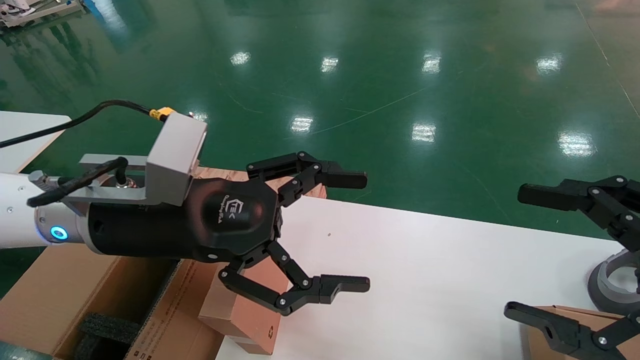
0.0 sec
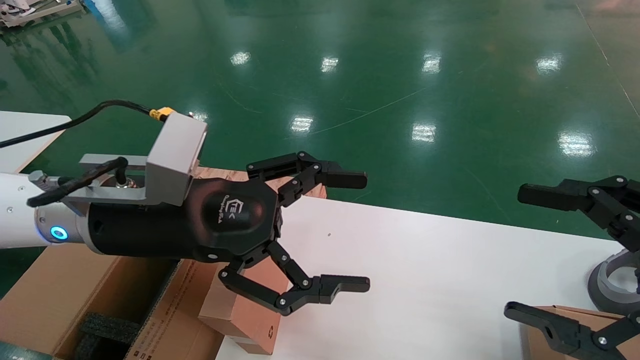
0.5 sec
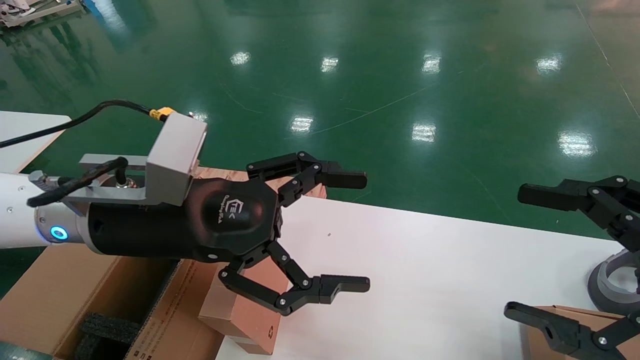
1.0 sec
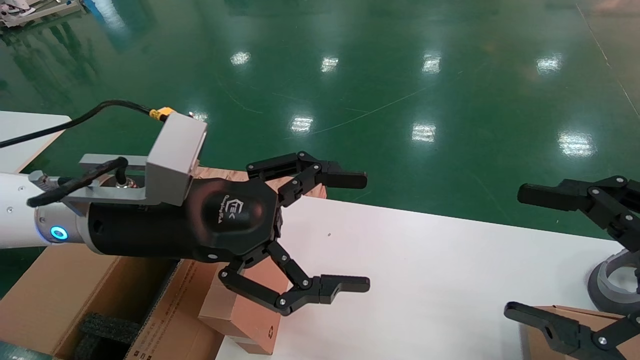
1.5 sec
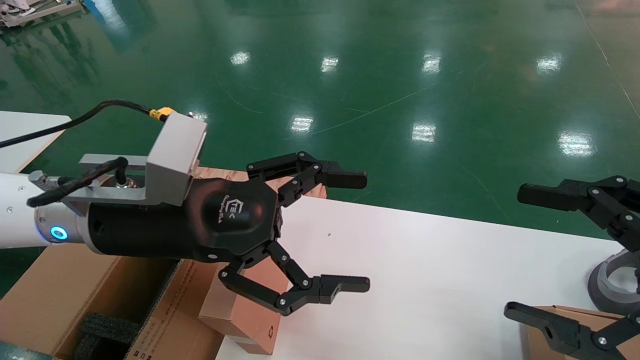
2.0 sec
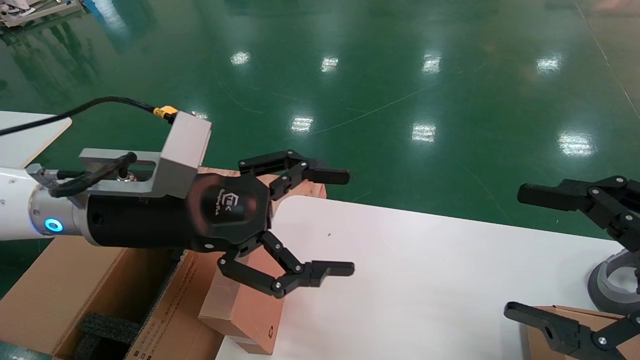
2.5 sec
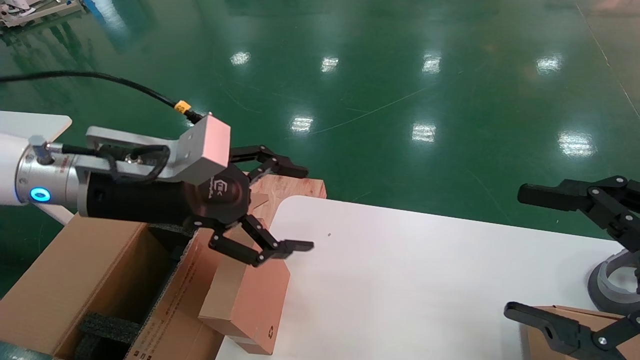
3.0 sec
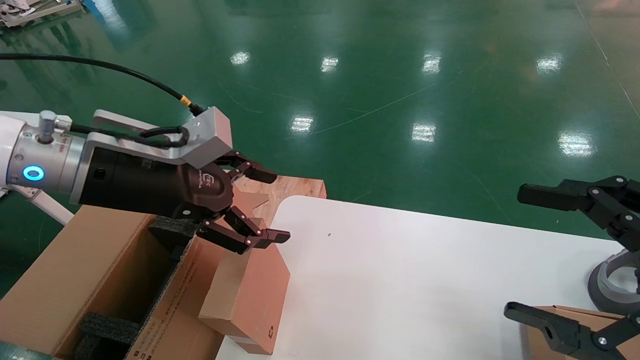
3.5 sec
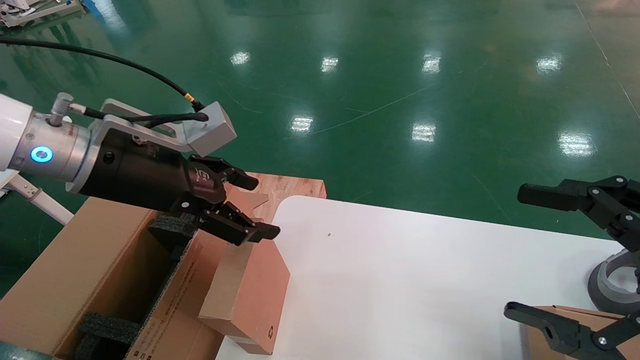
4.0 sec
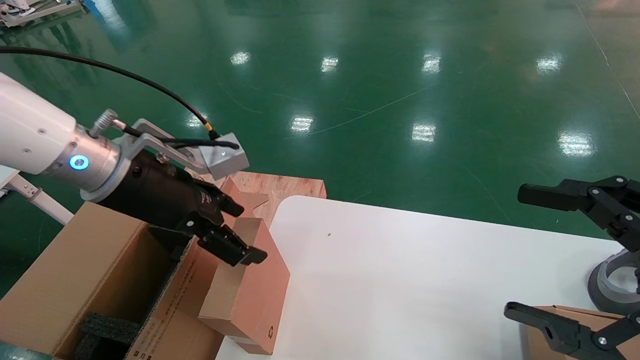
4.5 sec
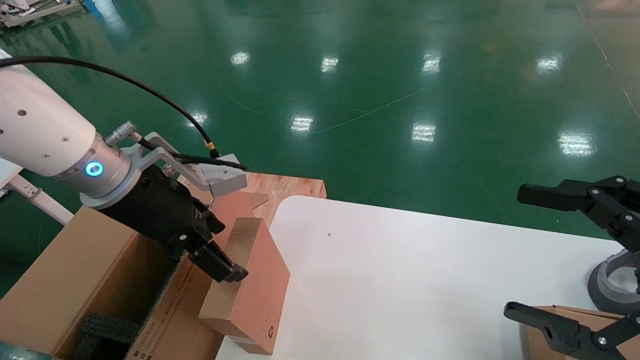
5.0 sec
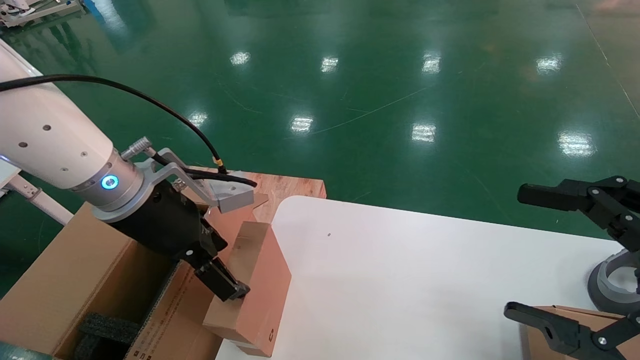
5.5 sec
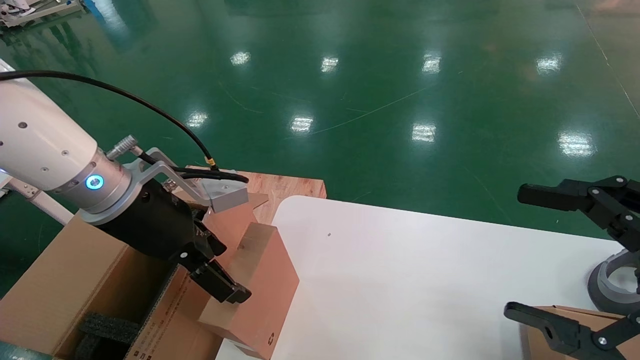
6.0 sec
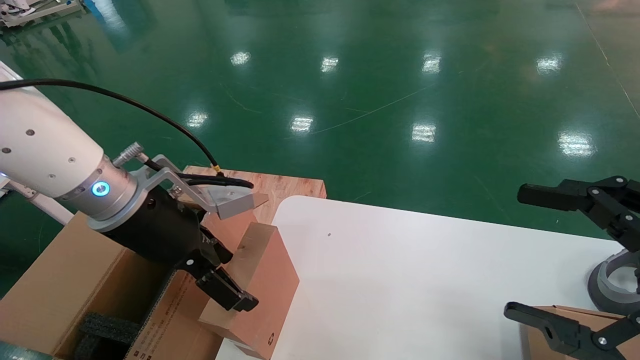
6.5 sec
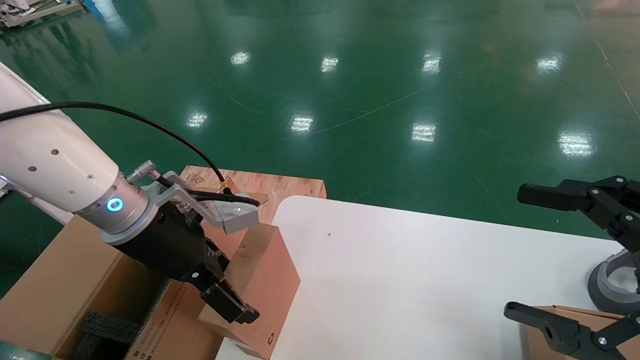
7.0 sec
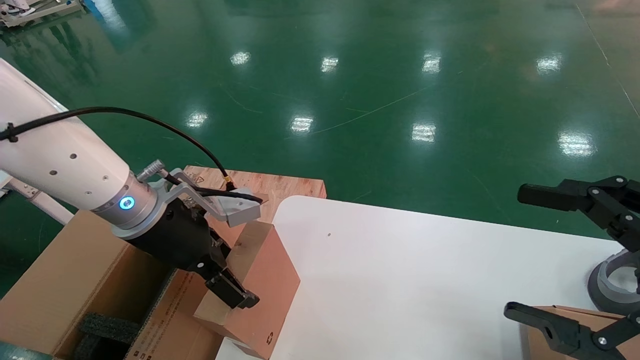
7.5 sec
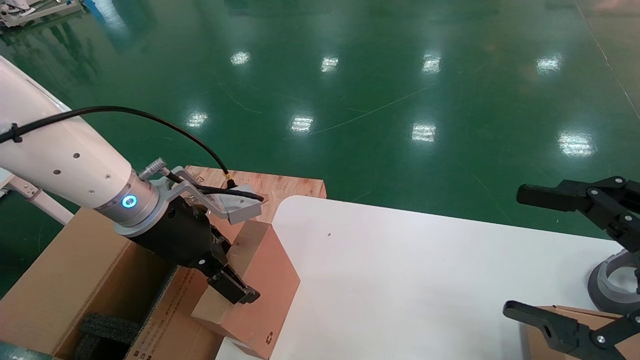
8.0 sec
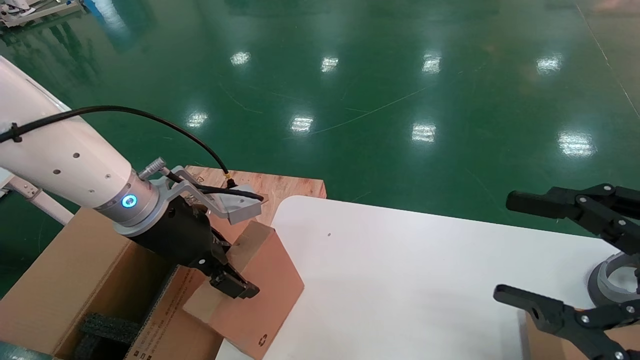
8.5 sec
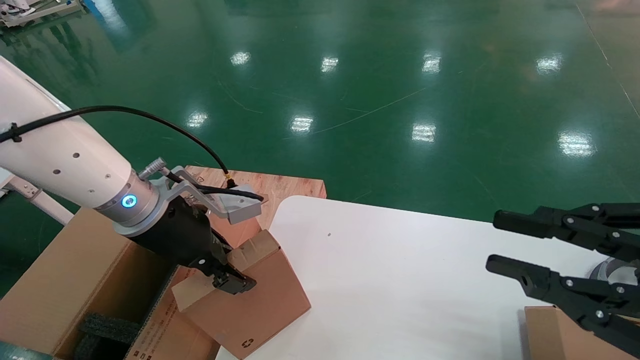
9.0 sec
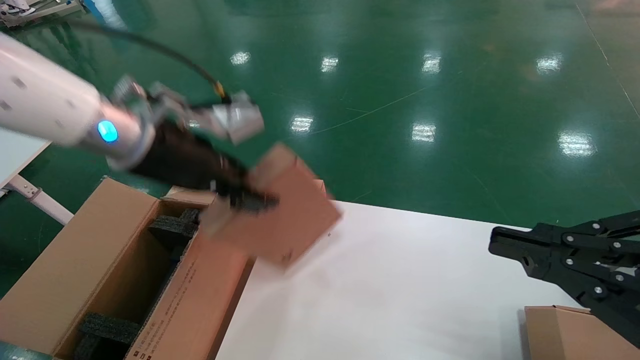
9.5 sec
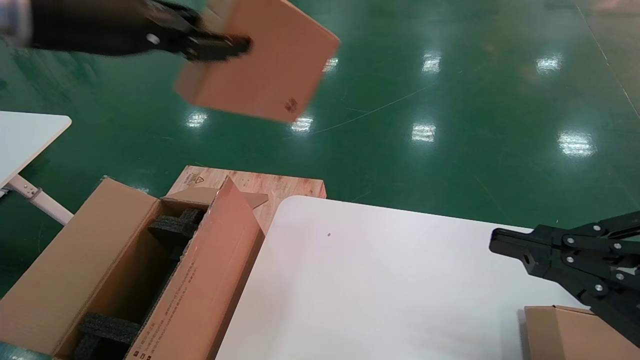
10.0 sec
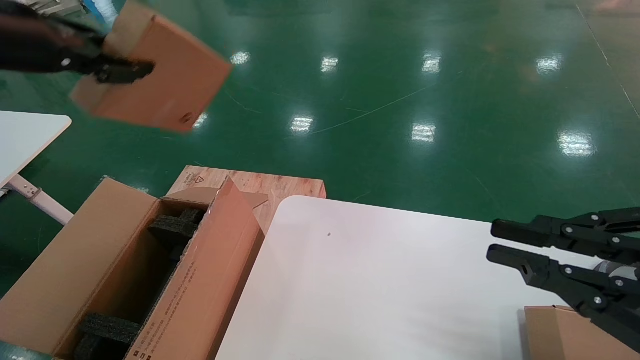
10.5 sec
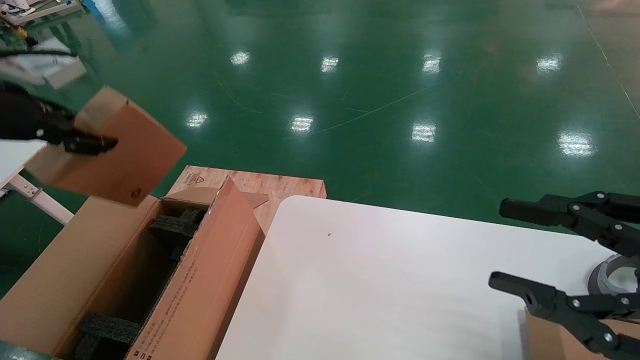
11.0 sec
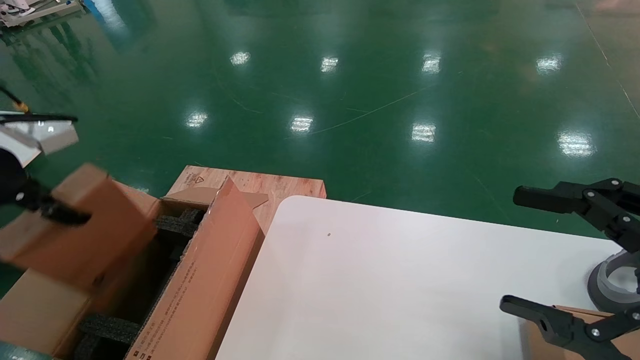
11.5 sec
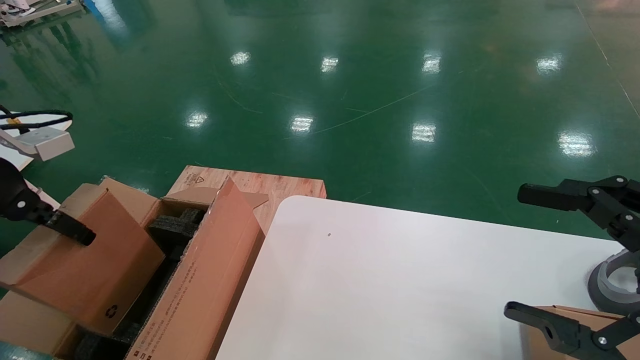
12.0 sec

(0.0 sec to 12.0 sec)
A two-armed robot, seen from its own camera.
Task of the whole recording: put the box on the table into the big box.
Step, 0.0 sec - 8.5 sec: Grasp the paper box.
0.0 sec - 2.0 sec: Both grippers stay put.
2.0 sec - 4.0 sec: The left gripper shifts by some 5 cm.
6.0 sec - 8.0 sec: The grippers make only small movements.
8.0 sec - 10.0 sec: The right gripper closes; the left gripper shifts about 20 cm upward, and closes its fingers.
10.0 sec - 12.0 sec: The left gripper moves to the left and downward, some 20 cm, while the right gripper opens.

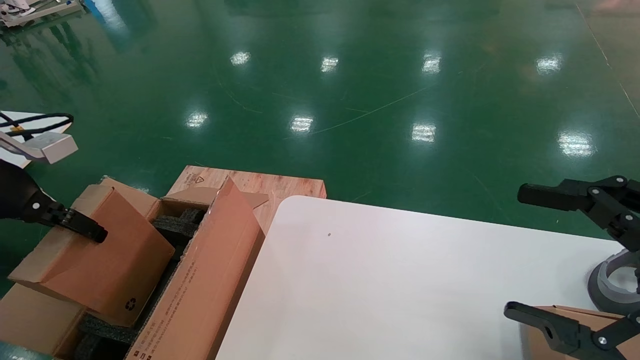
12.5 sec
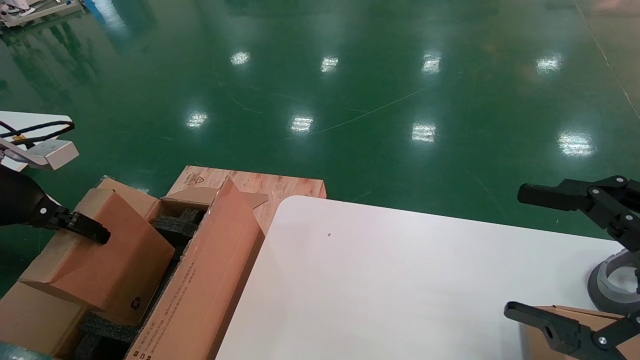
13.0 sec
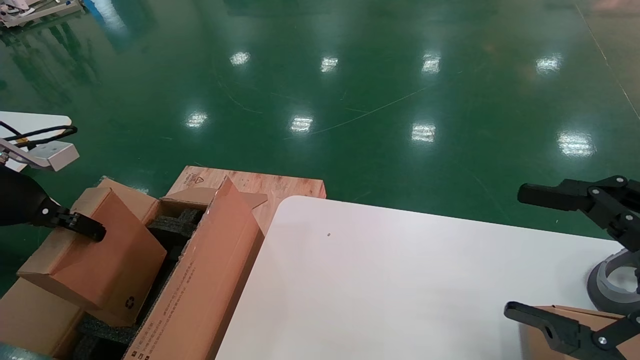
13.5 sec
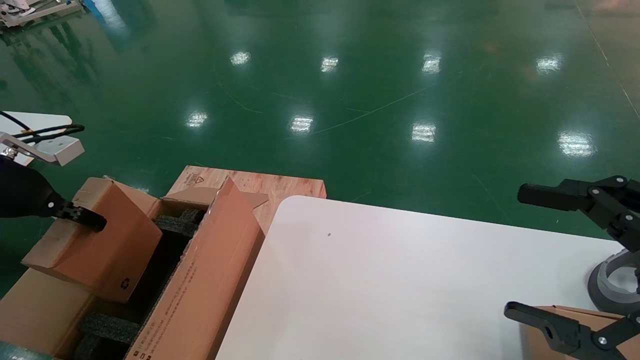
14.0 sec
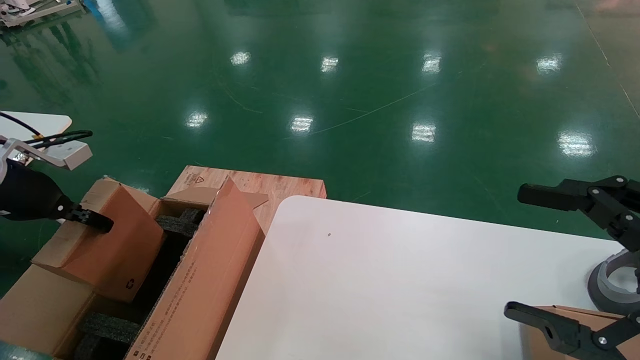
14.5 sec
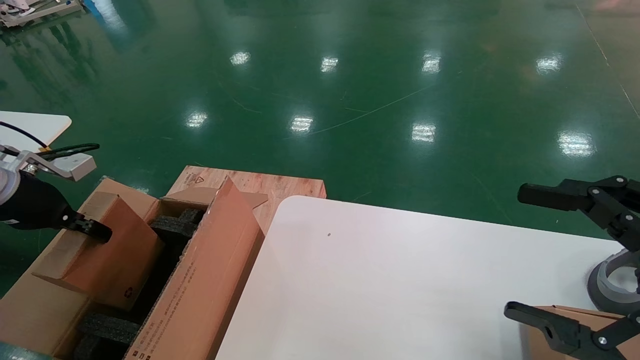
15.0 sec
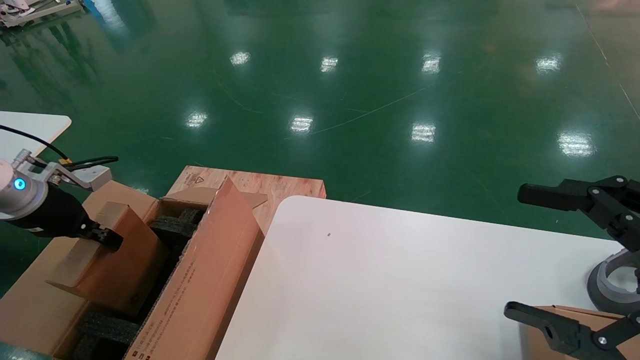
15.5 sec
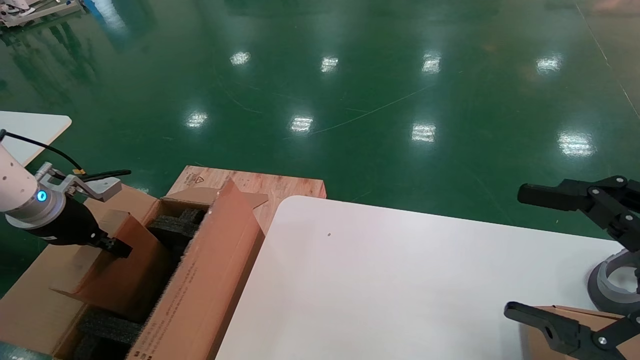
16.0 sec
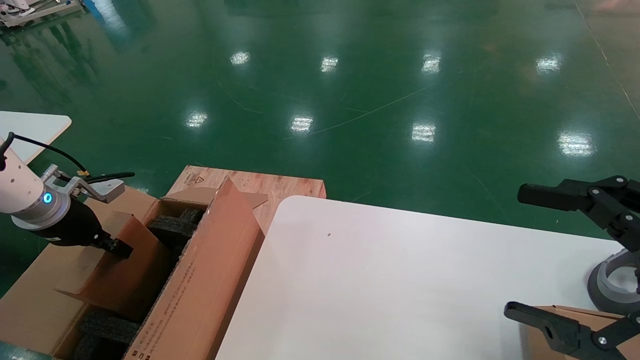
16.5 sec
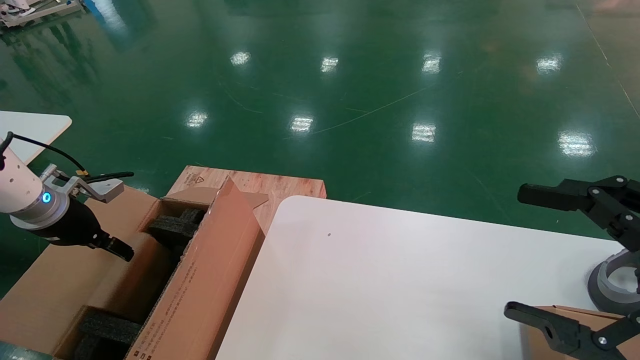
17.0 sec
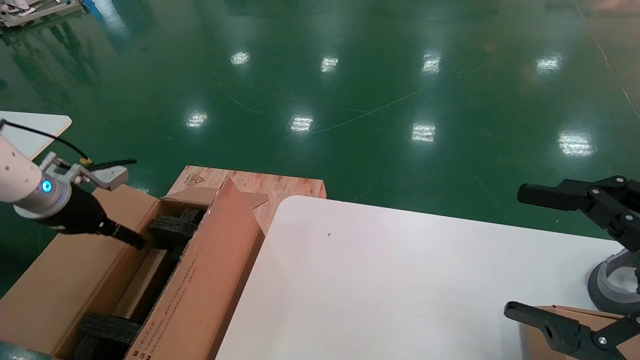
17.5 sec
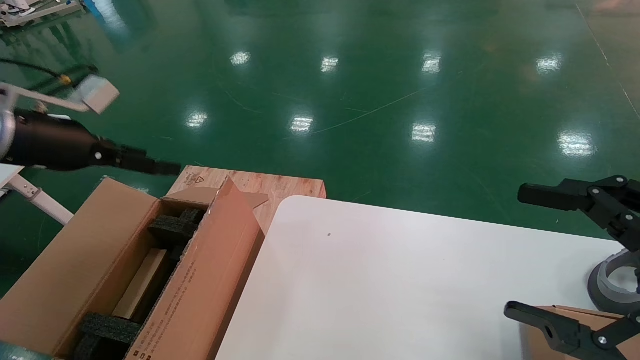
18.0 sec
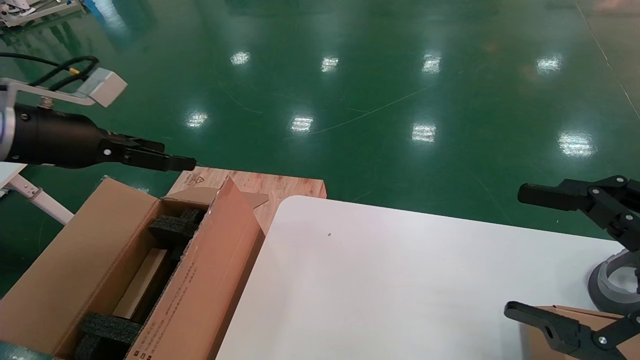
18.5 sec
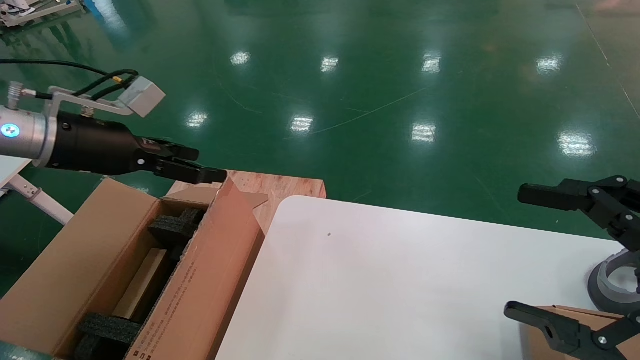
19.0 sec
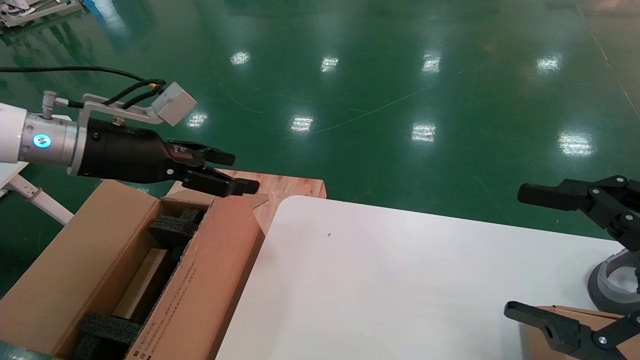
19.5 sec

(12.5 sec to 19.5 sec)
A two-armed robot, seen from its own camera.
Task of the whole recording: put the box on the table into the big box.
Step, 12.5 sec - 17.0 sec: Place the paper box in the another big box.
12.5 sec - 14.5 sec: The left gripper shifts by about 5 cm.
14.5 sec - 16.0 sec: The left gripper is displaced downward by approximately 5 cm.
16.0 sec - 17.5 sec: The left gripper opens up.
17.5 sec - 19.5 sec: The left gripper is displaced to the right and upward by about 15 cm.
